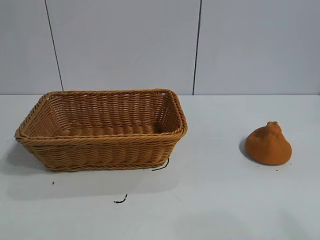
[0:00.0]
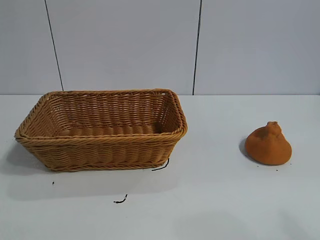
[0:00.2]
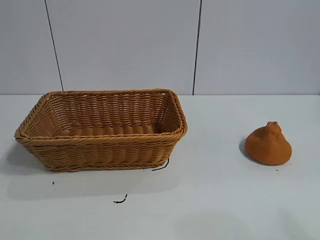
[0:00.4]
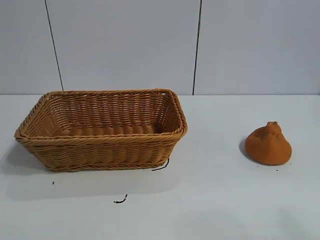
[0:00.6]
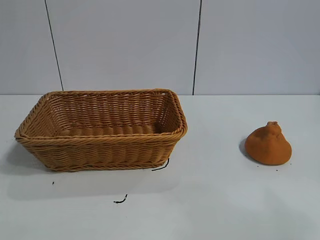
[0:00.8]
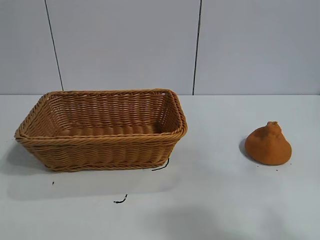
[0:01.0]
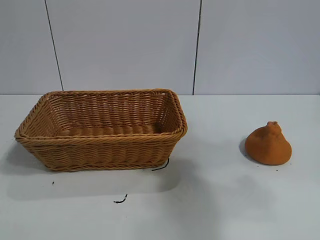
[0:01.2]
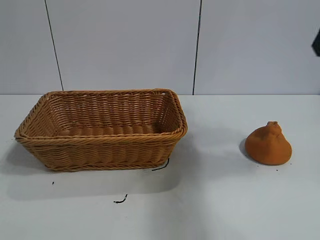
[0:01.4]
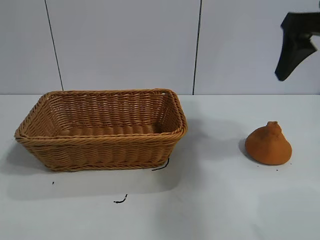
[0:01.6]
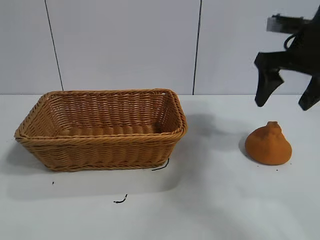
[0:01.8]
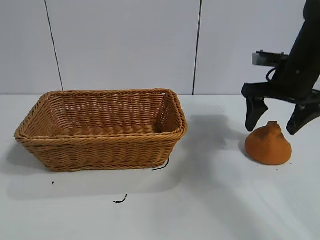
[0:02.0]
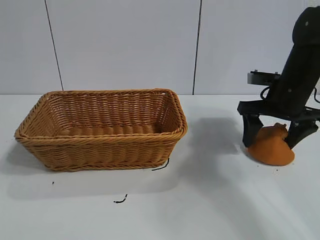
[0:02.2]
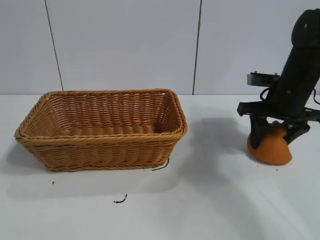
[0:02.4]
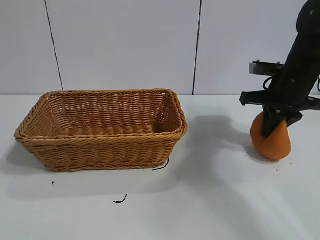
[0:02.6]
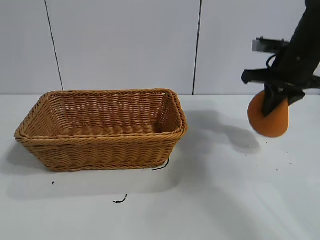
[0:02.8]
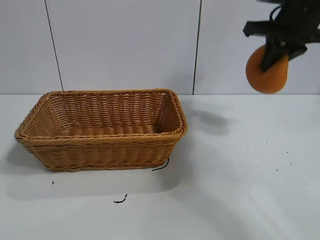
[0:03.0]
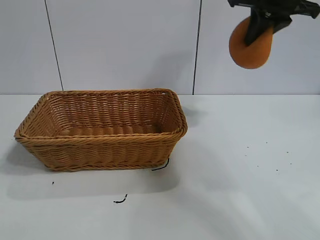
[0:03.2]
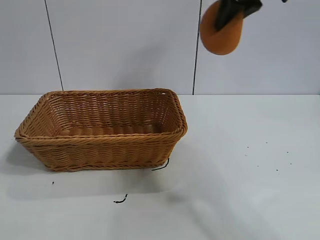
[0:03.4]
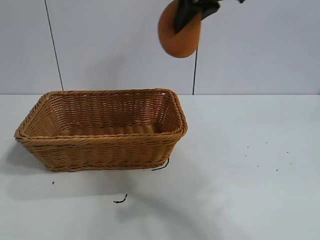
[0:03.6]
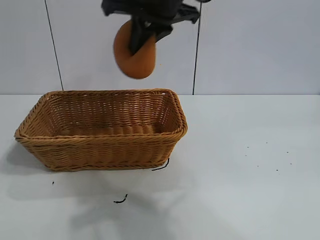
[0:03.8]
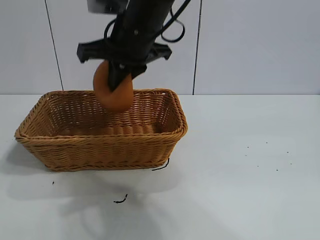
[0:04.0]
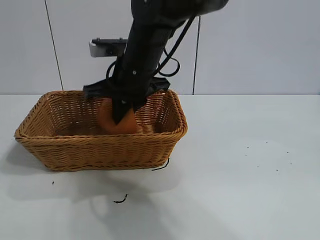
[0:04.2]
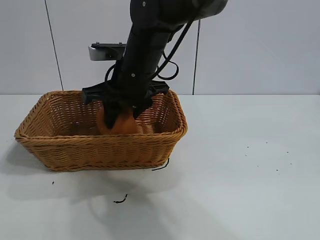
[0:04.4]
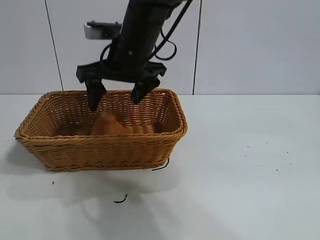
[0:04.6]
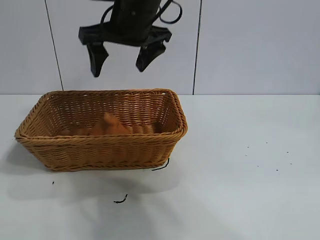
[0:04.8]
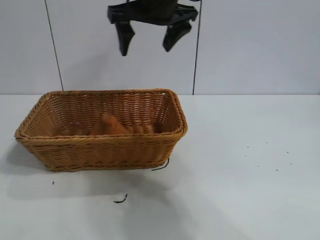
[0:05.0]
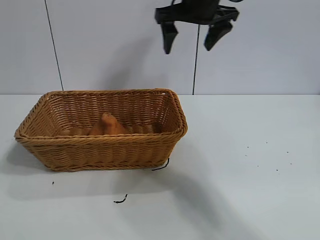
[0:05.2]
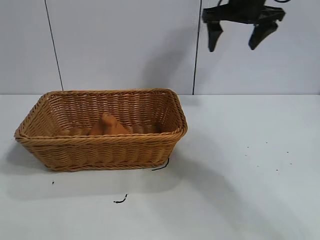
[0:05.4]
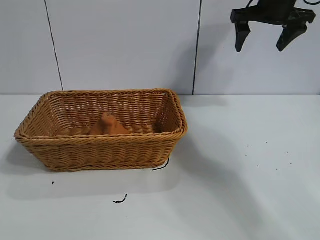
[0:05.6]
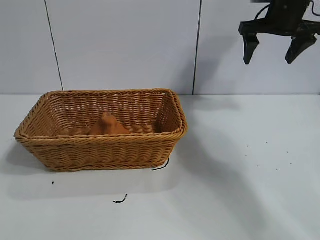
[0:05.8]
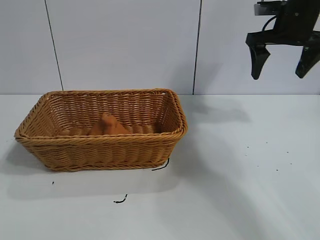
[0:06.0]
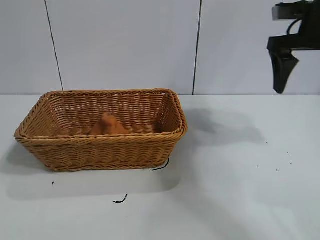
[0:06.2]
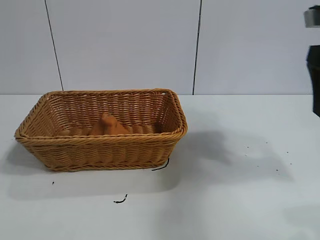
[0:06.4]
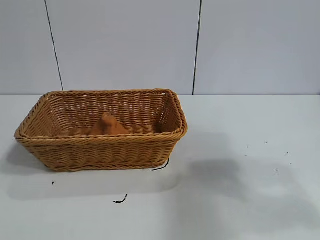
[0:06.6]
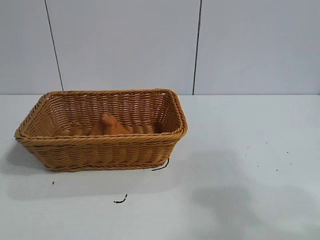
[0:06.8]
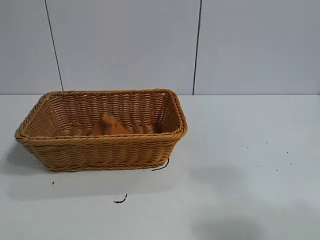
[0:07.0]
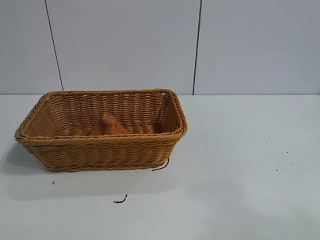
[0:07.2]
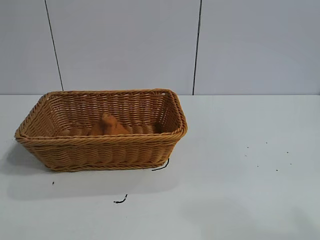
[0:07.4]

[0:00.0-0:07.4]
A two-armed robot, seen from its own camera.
Task of the whole recording: pick up the orange and put it into the basket.
Step, 0:00.6 to 0:02.6: Grasp the orange with right gripper.
Step, 0:02.8 to 0:04.4: Place the orange in the basket with right gripper.
